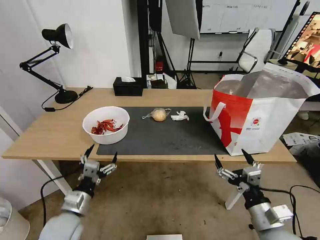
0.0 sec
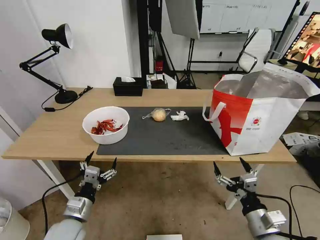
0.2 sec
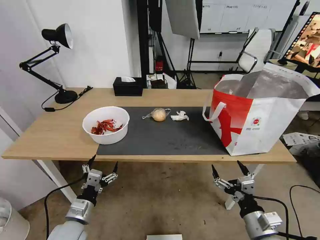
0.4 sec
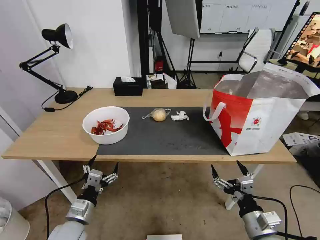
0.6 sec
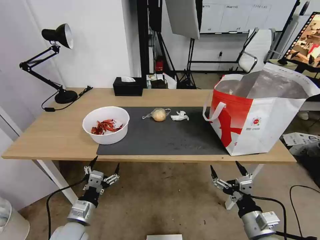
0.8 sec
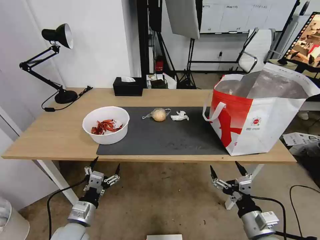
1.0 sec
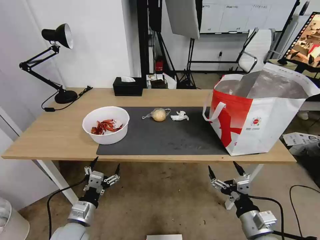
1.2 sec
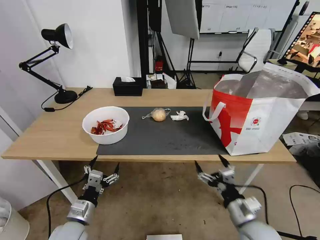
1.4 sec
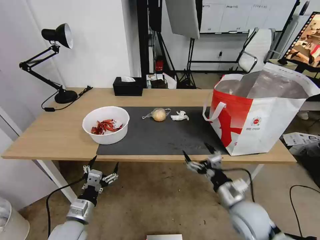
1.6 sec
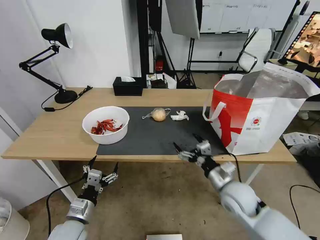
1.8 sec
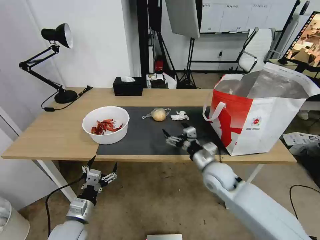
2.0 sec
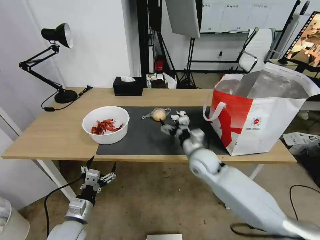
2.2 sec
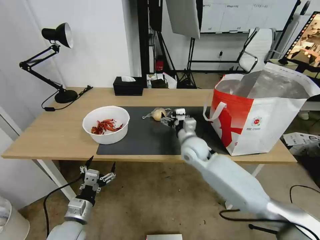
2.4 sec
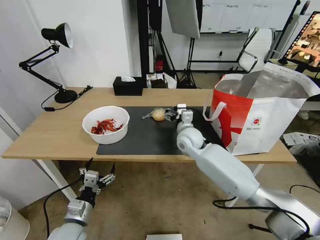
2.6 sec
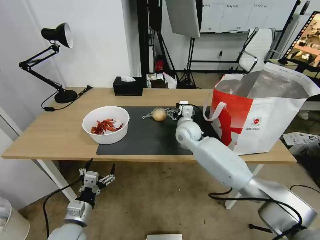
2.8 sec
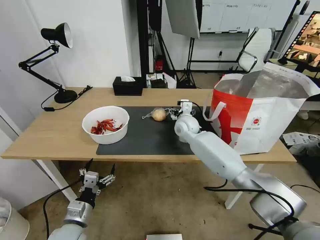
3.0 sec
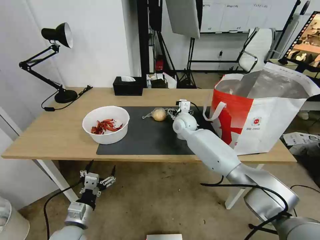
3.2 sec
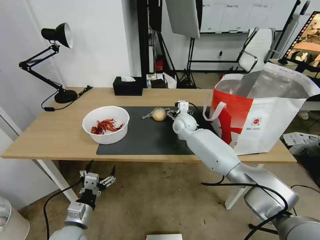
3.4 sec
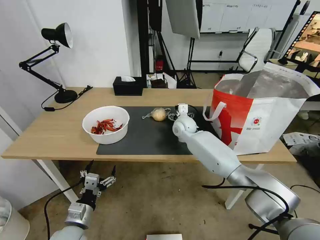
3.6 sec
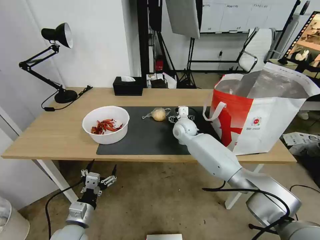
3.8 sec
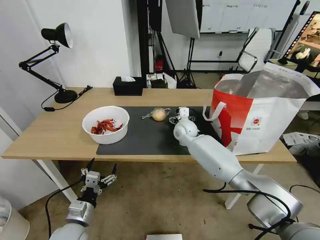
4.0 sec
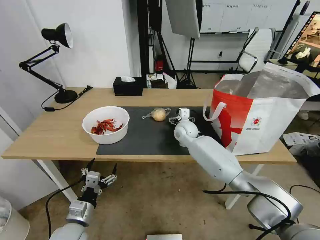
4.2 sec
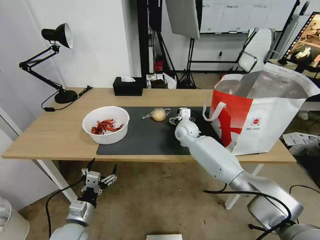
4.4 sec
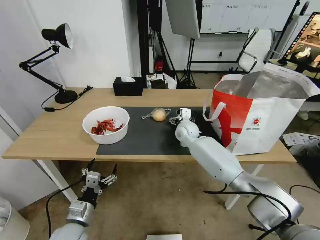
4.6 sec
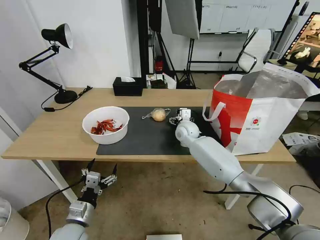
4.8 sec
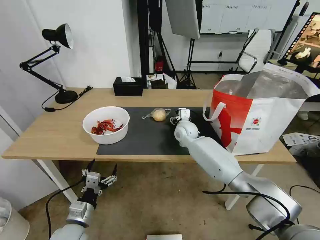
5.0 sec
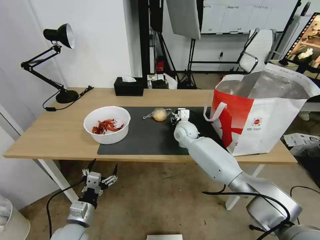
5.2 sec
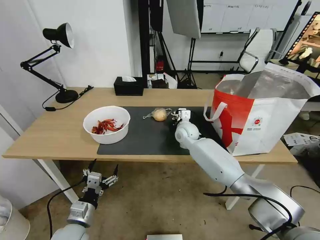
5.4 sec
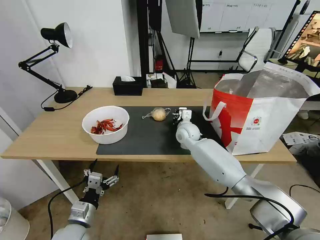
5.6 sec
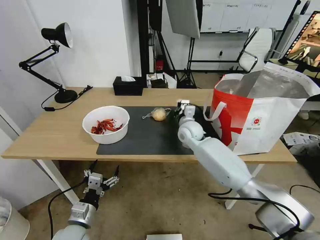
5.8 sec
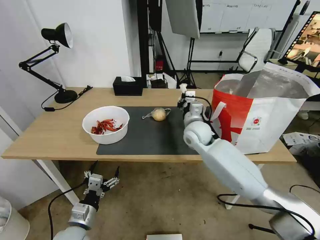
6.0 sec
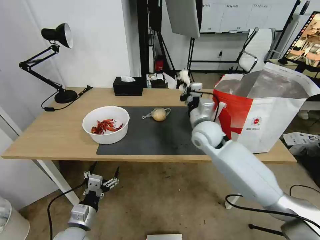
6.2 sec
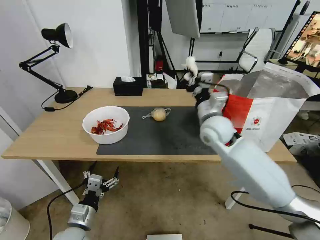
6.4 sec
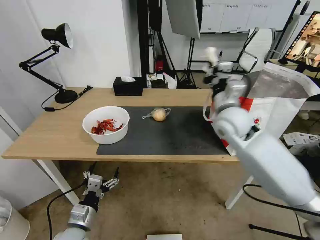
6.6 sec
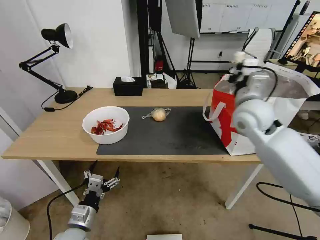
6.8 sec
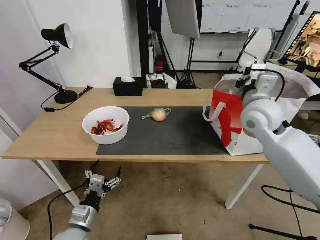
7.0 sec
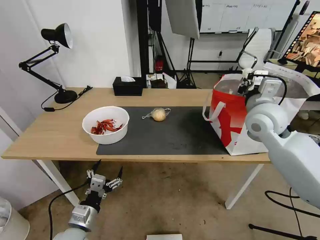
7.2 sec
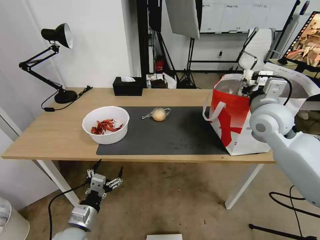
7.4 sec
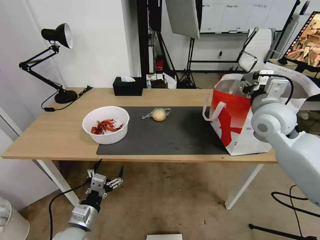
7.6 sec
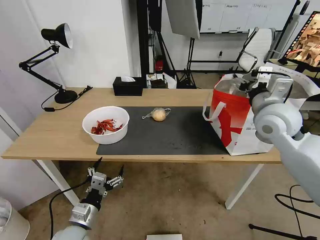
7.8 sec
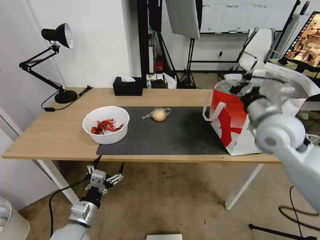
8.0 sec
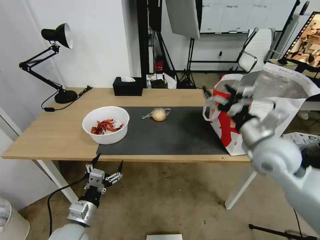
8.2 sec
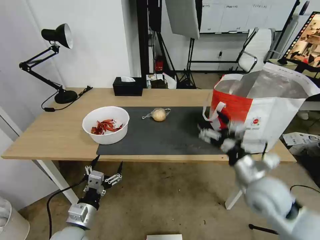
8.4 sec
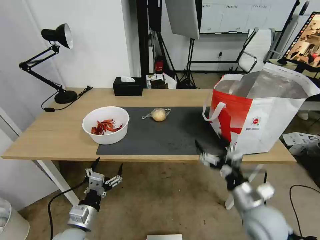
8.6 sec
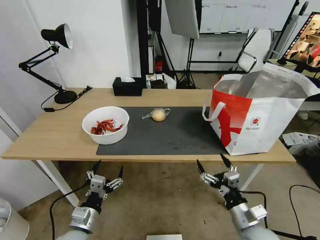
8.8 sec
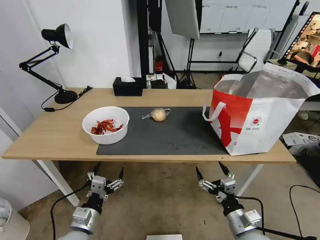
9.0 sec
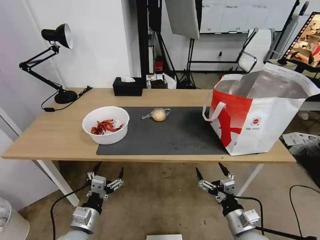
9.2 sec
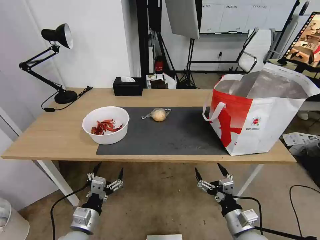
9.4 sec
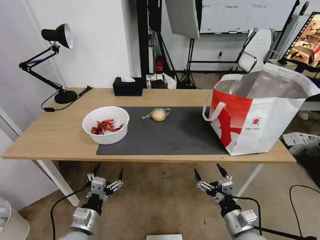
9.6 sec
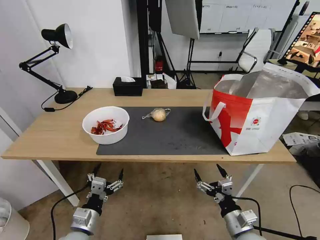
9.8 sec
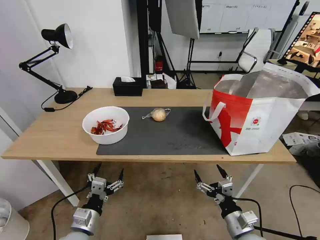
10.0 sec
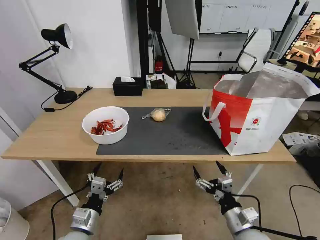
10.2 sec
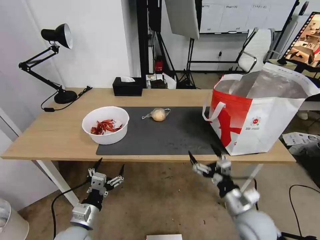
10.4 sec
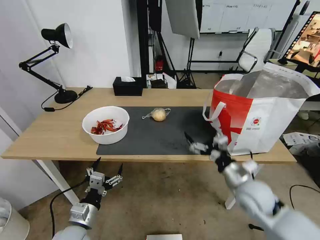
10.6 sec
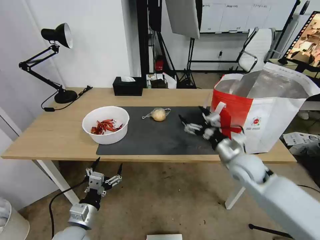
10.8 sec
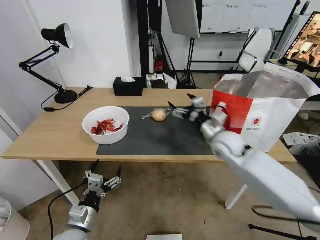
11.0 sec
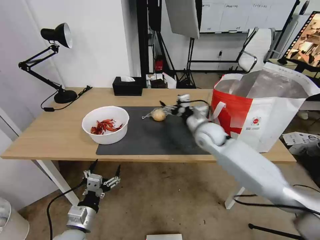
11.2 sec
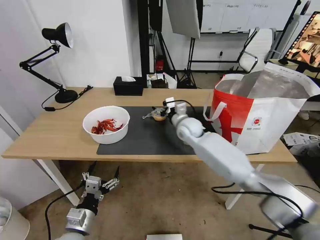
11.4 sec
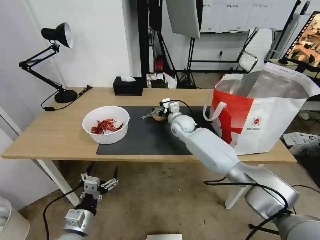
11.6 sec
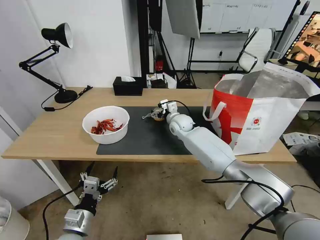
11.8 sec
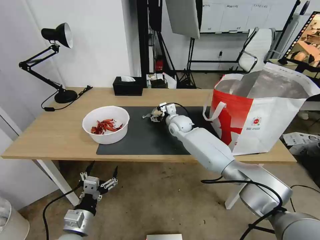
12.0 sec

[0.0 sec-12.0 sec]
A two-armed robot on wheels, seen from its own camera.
Task of the whole recording: Pick up the trash from the table and place it into the takeout bag.
0.0 sec to 1.6 sec: The right gripper goes approximately 10 cm forward.
1.6 sec to 3.0 sec: The right gripper heads forward and to the left, covering approximately 35 cm.
3.0 sec to 4.4 sec: The grippers move only a little.
4.4 sec to 6.0 sec: The right gripper heads backward and upward, covering approximately 10 cm, and closes.
6.0 sec to 7.6 sec: The right gripper goes approximately 20 cm to the right, upward and backward, and opens its fingers.
7.6 sec to 9.0 sec: The right gripper is displaced downward and backward by approximately 35 cm.
9.0 sec to 10.4 sec: The right gripper shifts about 5 cm forward.
10.4 sec to 12.0 sec: The right gripper is displaced forward and to the left by roughly 40 cm.

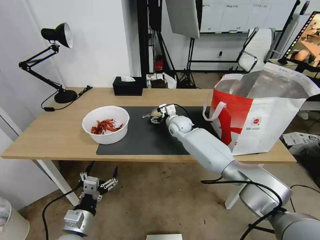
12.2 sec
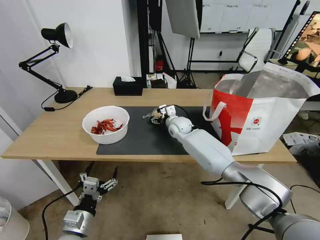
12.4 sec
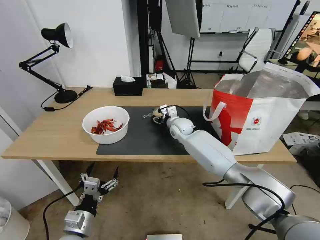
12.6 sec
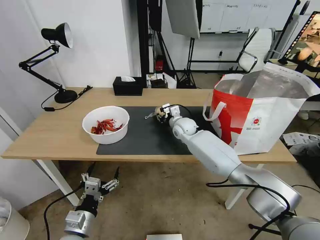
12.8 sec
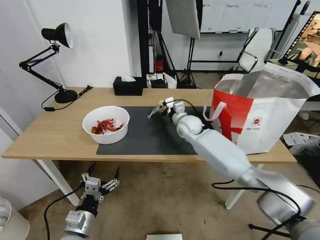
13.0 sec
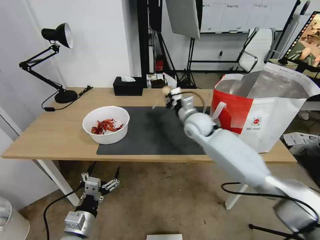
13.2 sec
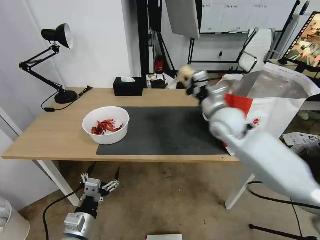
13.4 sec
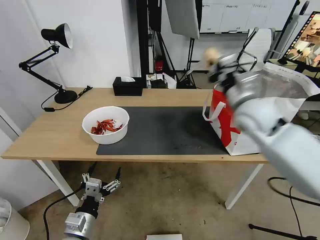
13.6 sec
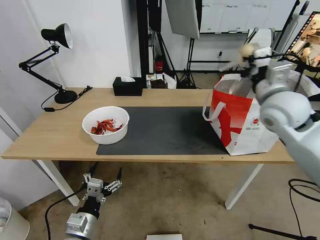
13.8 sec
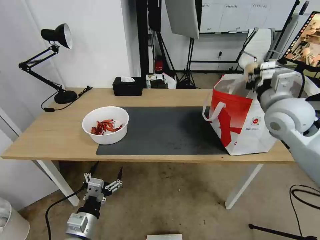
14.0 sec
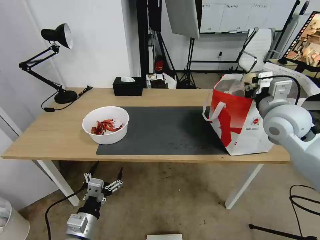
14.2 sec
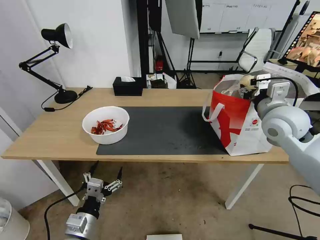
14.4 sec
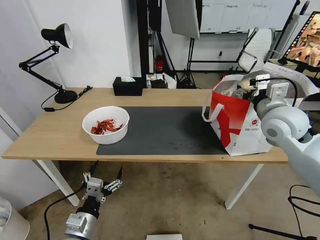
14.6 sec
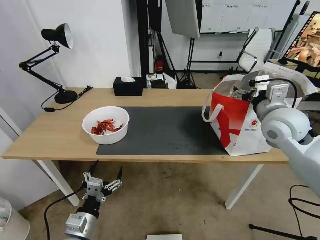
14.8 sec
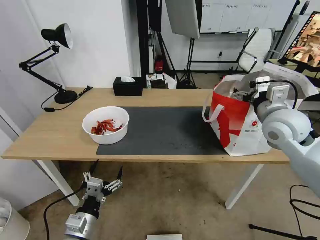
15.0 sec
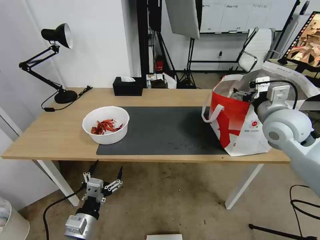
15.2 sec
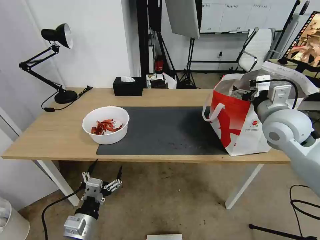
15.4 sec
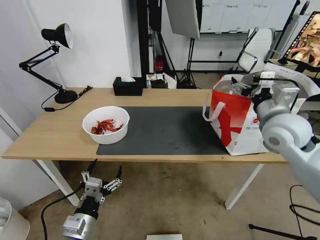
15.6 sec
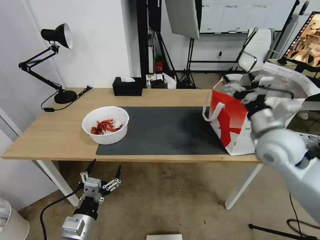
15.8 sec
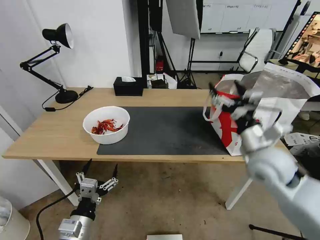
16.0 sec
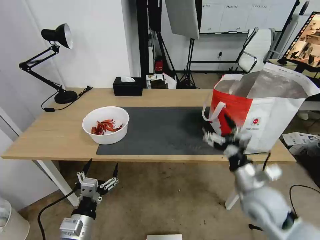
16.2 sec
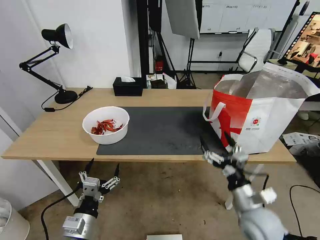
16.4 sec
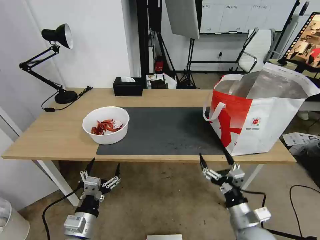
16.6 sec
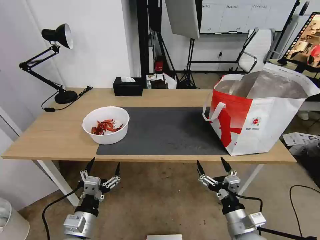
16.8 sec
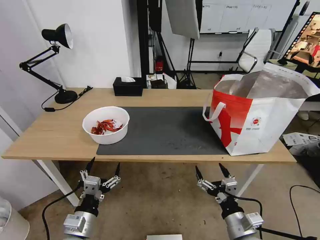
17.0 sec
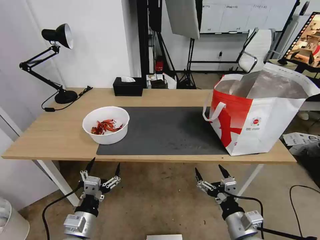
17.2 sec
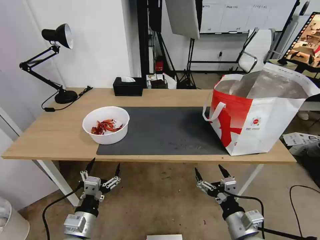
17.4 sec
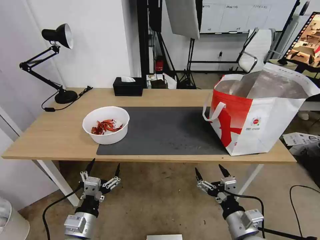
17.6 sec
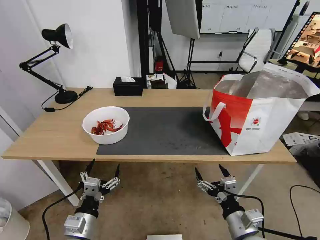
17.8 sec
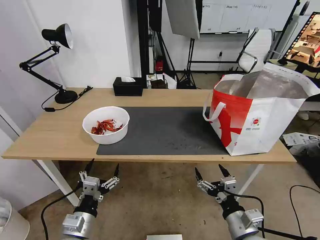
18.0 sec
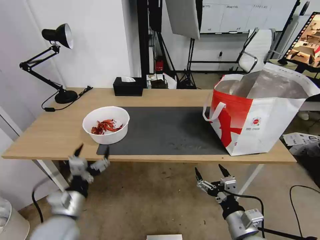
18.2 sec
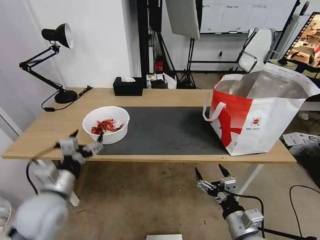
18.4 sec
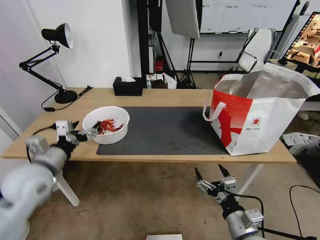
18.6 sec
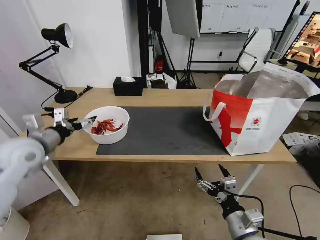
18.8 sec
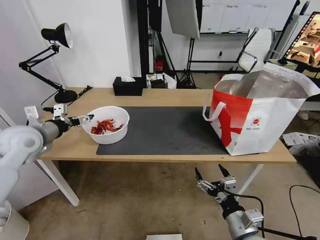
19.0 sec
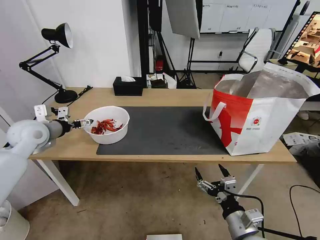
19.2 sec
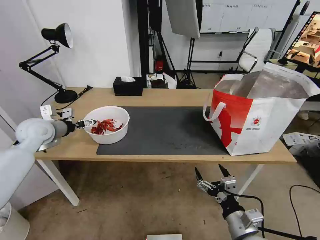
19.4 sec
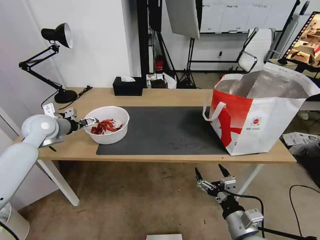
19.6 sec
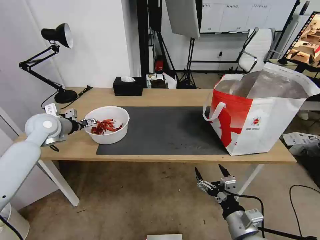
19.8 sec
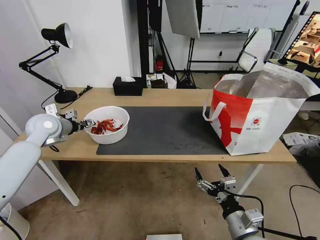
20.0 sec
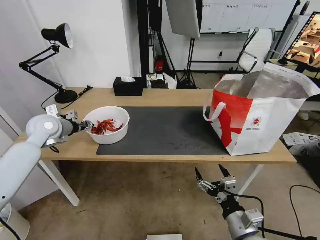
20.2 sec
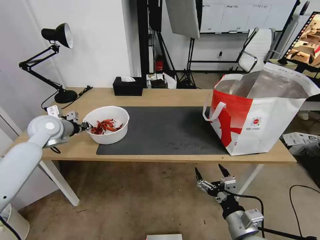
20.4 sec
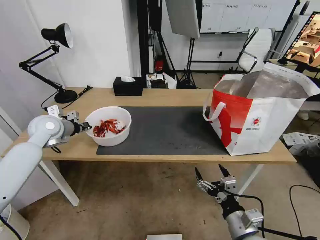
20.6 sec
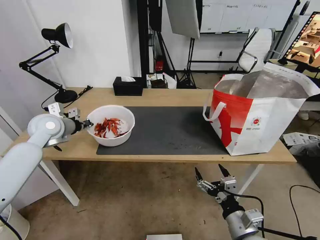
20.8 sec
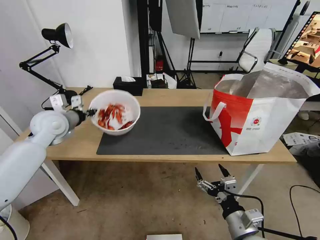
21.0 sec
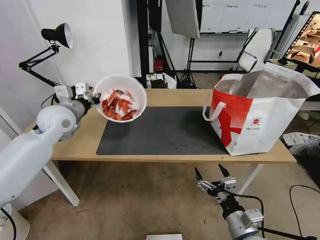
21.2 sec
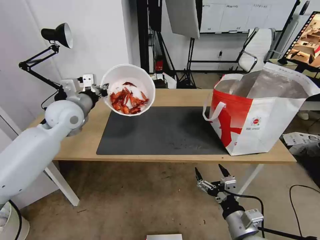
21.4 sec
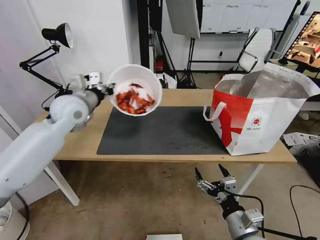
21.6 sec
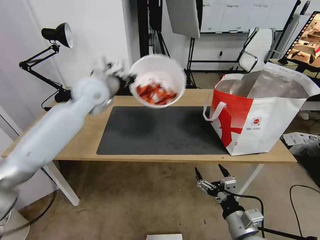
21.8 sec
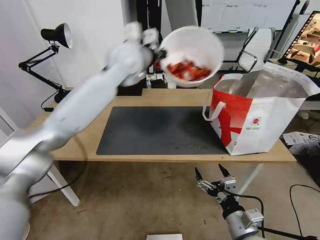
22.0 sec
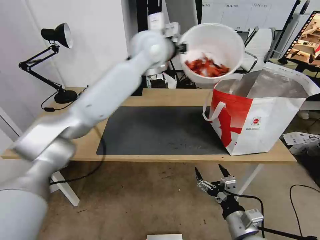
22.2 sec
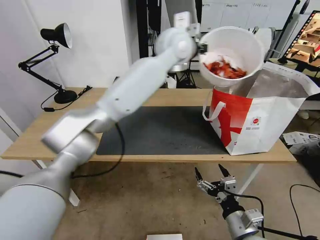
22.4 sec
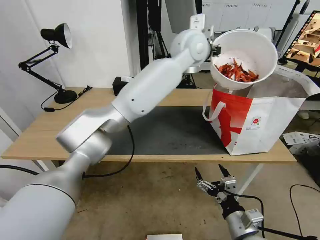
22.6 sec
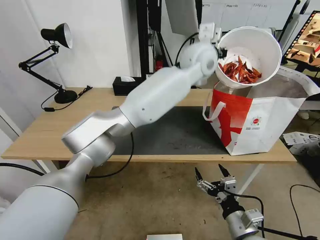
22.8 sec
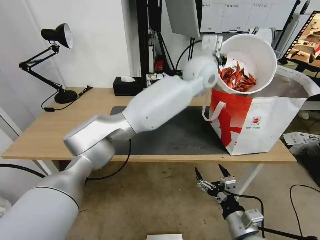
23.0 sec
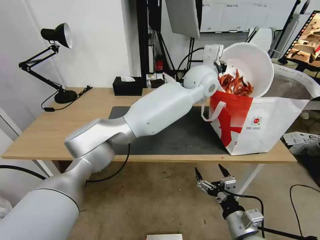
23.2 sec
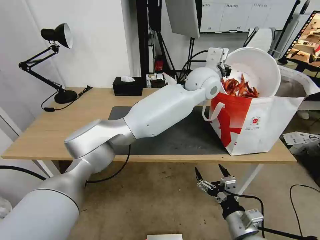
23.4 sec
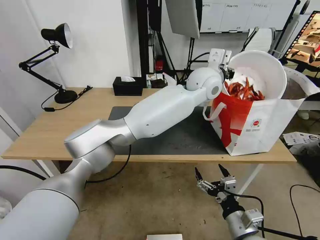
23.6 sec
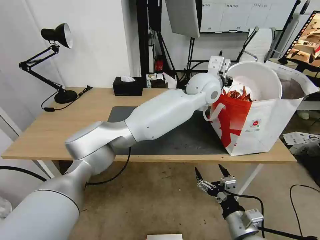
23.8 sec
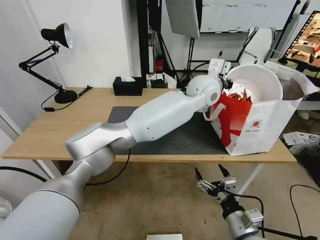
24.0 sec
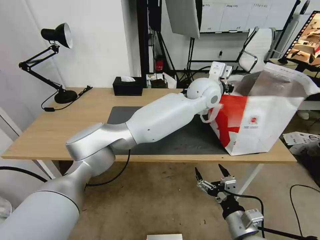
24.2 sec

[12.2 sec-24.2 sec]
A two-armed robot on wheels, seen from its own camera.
Task of the whole recording: Pick up the trash from the table and place it into the takeout bag.
12.2 sec to 13.8 sec: The right gripper travels upward, to the right and backward by approximately 35 cm, and closes up.
13.8 sec to 15.2 sec: The right gripper opens its fingers.
15.2 sec to 16.6 sec: The right gripper heads downward and backward, covering approximately 35 cm.
16.6 sec to 18.2 sec: The left gripper moves some 5 cm.
18.2 sec to 19.8 sec: The left gripper moves forward, to the left and upward, roughly 35 cm.
19.8 sec to 21.2 sec: The left gripper is displaced to the right by roughly 5 cm, and closes up.
21.2 sec to 22.6 sec: The left gripper is displaced to the right and upward by approximately 40 cm.
22.6 sec to 24.2 sec: The left gripper is displaced downward and to the right by some 10 cm.
